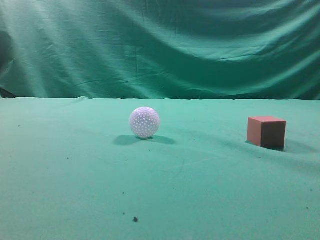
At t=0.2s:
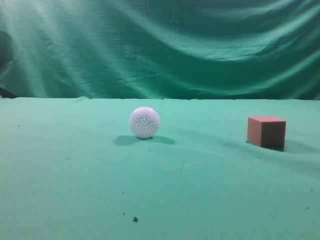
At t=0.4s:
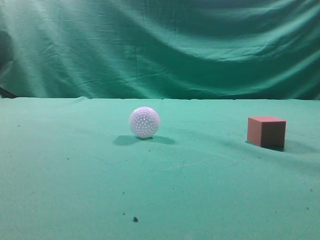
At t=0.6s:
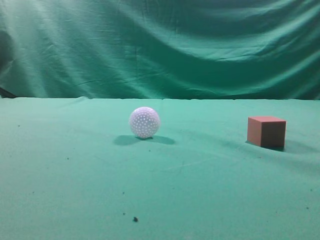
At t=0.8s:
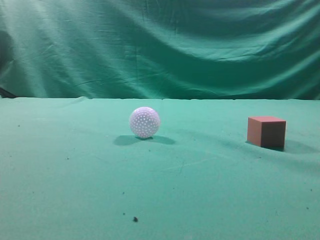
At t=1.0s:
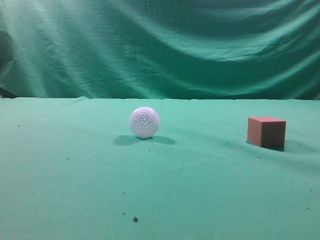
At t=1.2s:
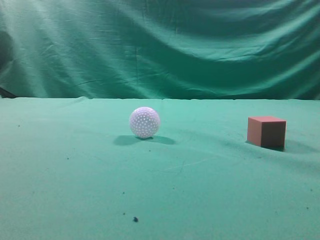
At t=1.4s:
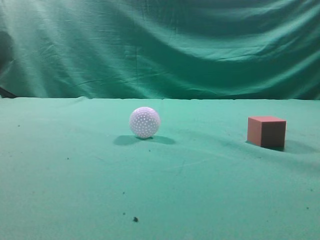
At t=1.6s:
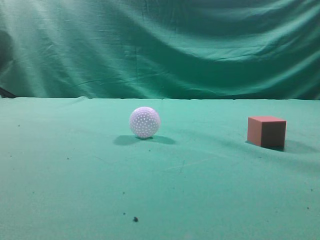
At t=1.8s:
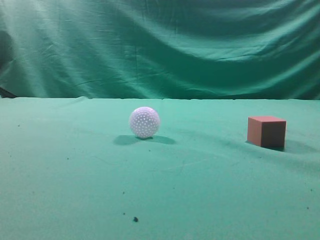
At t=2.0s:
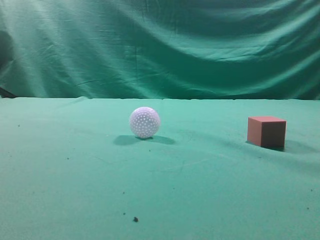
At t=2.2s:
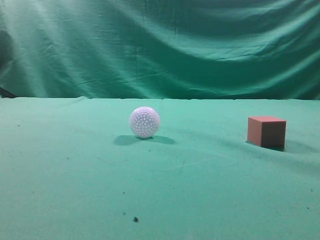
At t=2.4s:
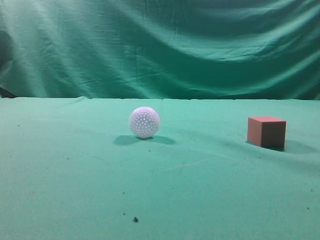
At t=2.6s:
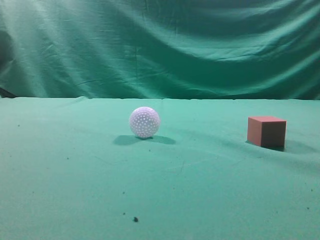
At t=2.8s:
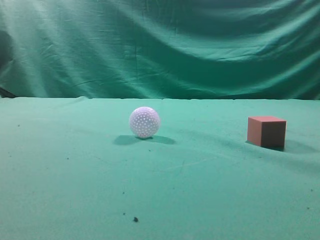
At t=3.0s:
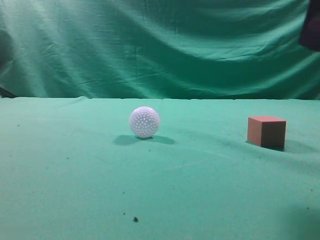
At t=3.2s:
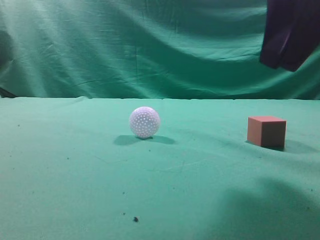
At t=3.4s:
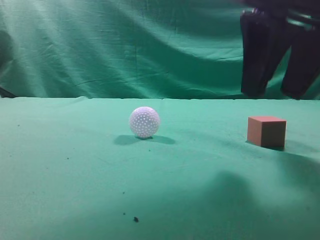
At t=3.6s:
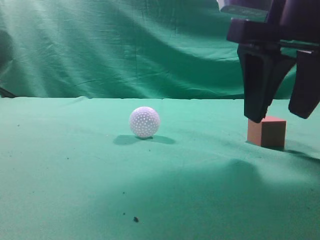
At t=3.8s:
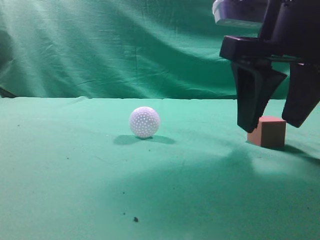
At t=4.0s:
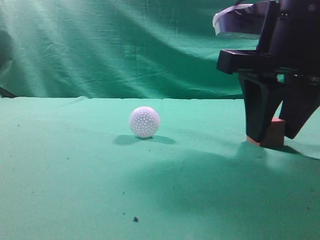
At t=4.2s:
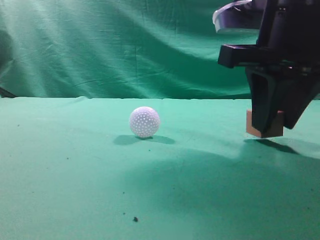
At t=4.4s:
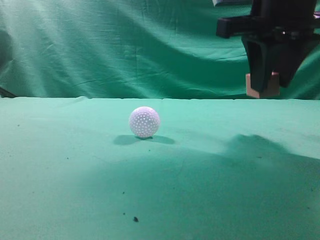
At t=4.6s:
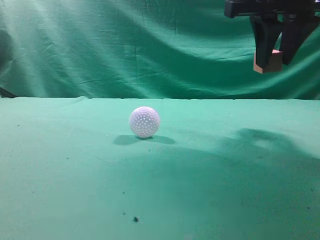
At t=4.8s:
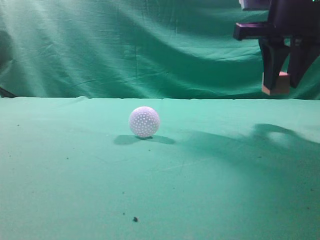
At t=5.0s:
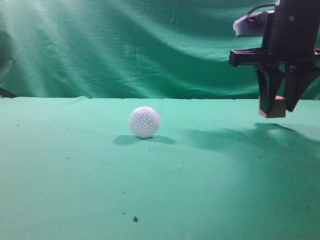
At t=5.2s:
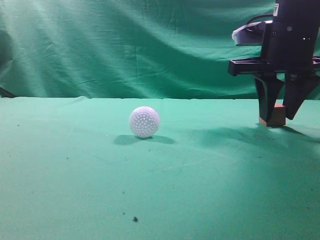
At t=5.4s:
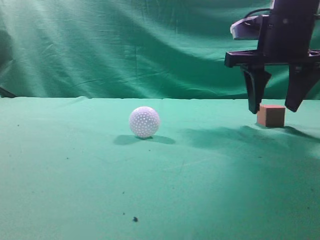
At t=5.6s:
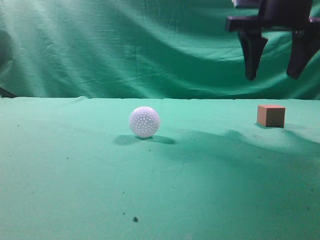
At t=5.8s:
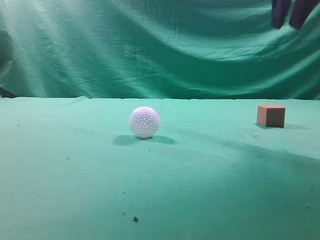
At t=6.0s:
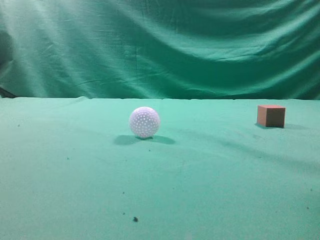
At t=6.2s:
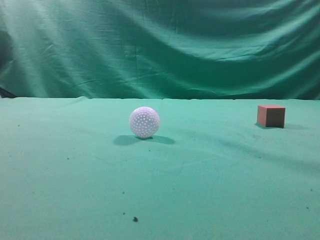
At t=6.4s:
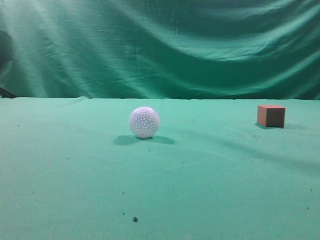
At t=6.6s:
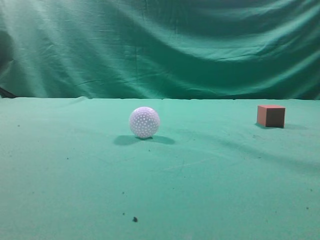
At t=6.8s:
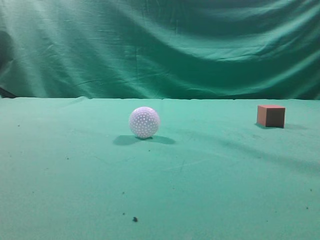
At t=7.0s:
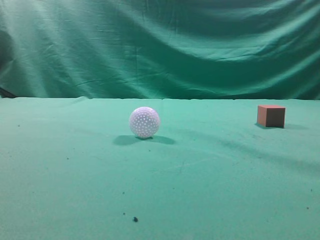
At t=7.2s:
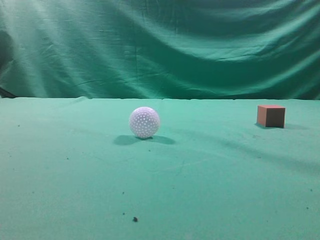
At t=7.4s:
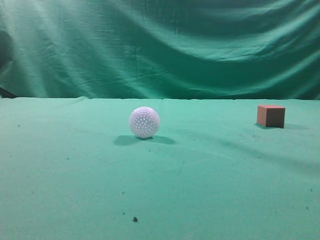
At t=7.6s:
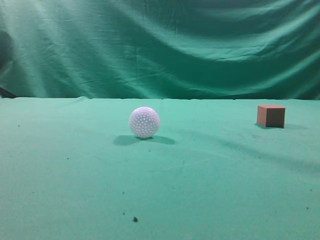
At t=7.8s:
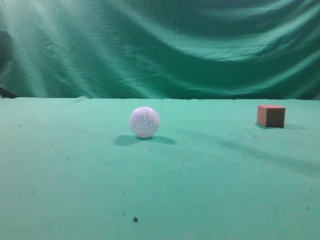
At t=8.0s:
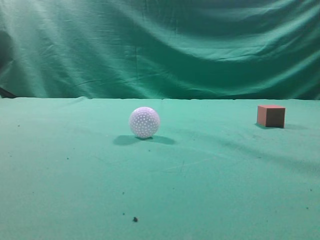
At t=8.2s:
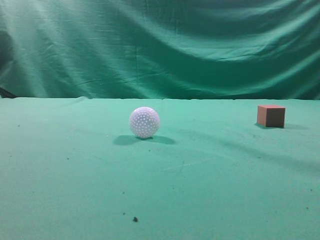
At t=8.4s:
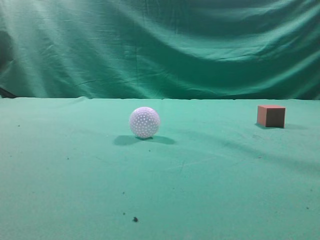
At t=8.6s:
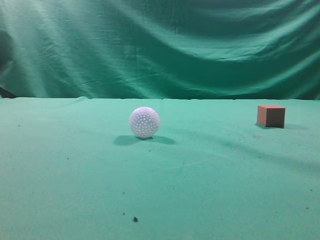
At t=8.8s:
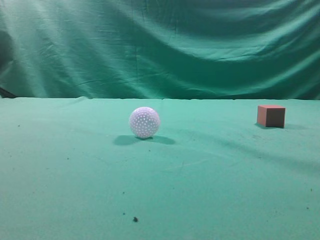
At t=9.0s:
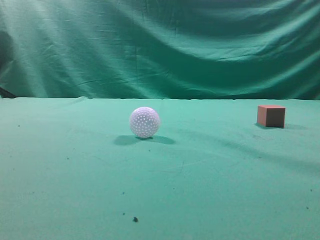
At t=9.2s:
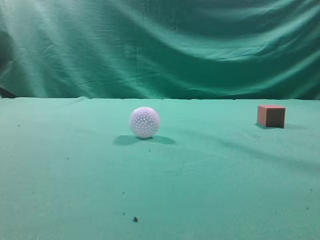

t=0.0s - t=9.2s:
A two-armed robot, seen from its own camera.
Task of the whole recording: pick up the cube block and place it in another position on the table.
Step, t=0.0s - t=4.2s: Pick up the small cube.
Step, t=4.4s - t=5.2s: Place the small cube on the ahead of the table.
t=1.6s - t=3.0s: The right gripper shifts roughly 20 cm forward and to the left.
t=3.0s - t=4.6s: The right gripper moves forward, roughly 15 cm, and opens up.
t=4.6s - t=6.2s: The right gripper heads backward, covering about 20 cm, and closes up.
t=7.6s - t=9.2s: Both grippers stay about where they are.
